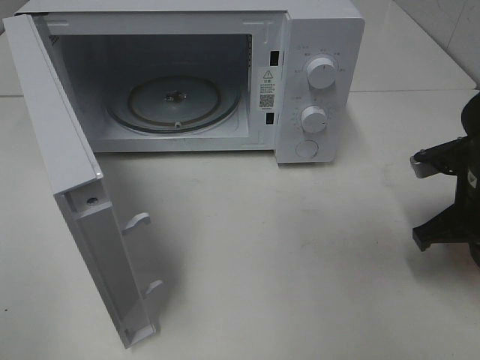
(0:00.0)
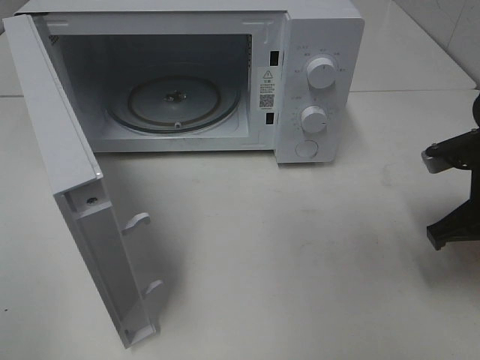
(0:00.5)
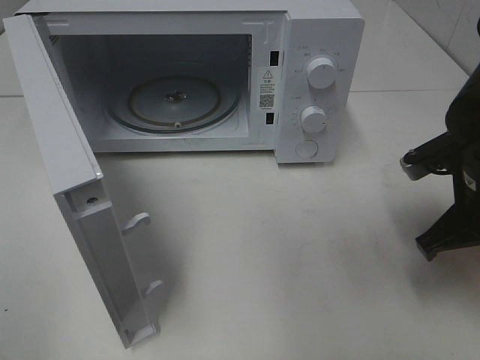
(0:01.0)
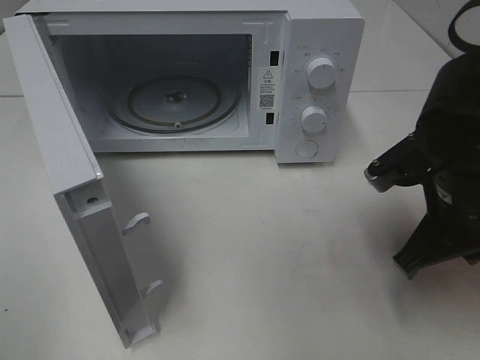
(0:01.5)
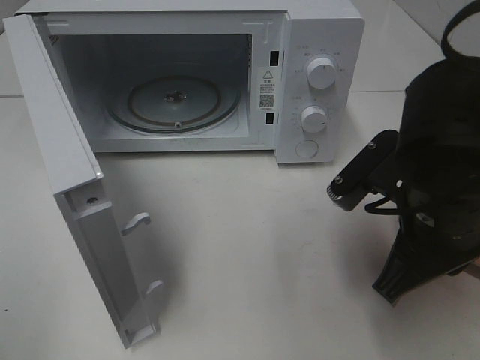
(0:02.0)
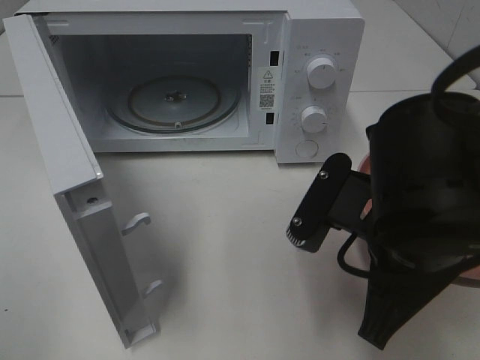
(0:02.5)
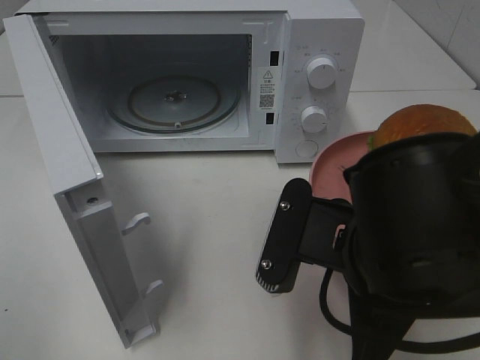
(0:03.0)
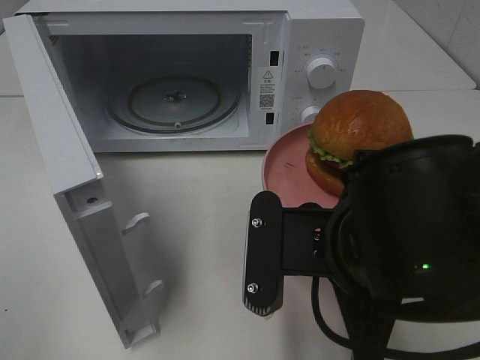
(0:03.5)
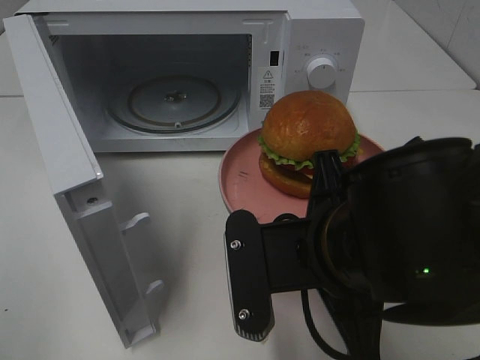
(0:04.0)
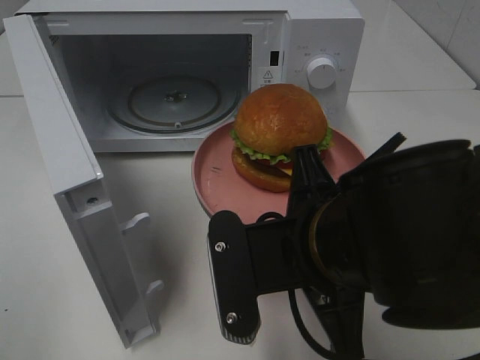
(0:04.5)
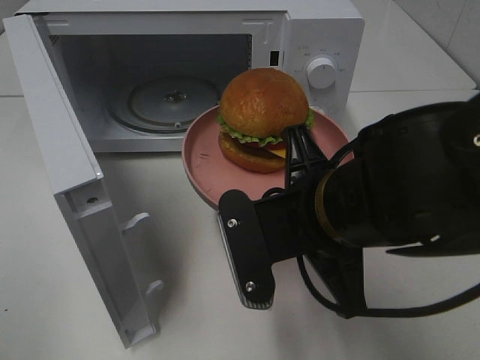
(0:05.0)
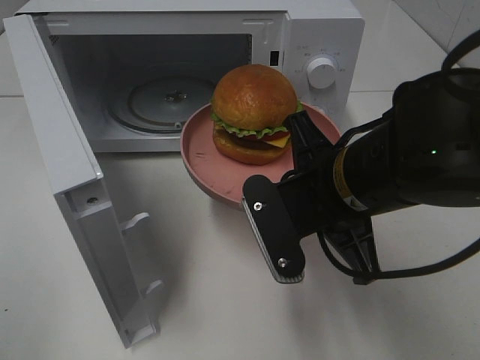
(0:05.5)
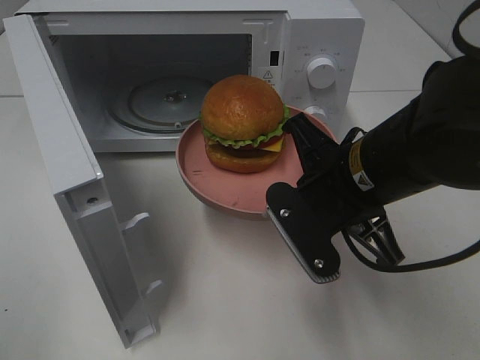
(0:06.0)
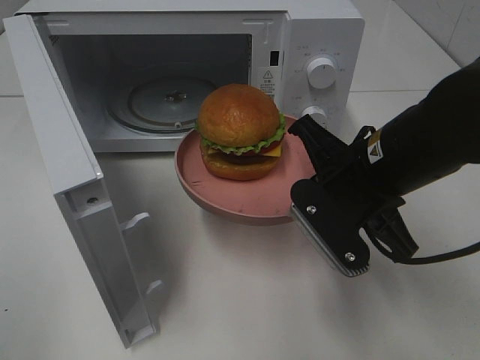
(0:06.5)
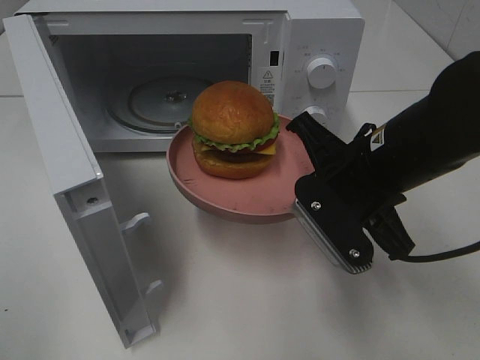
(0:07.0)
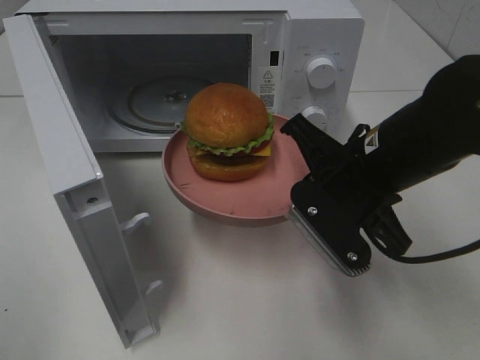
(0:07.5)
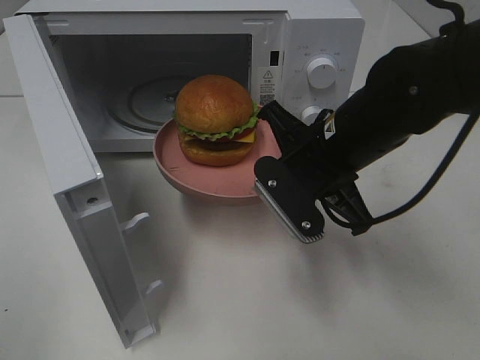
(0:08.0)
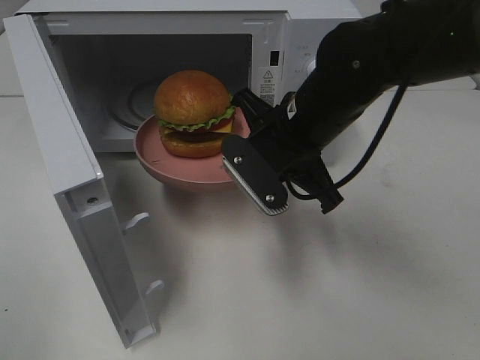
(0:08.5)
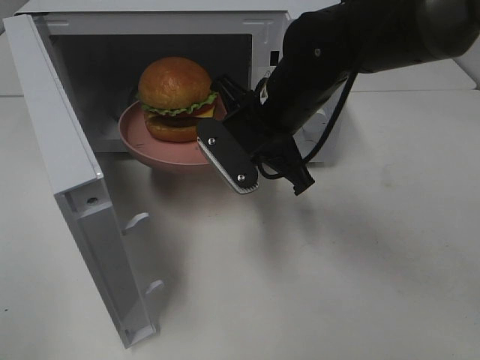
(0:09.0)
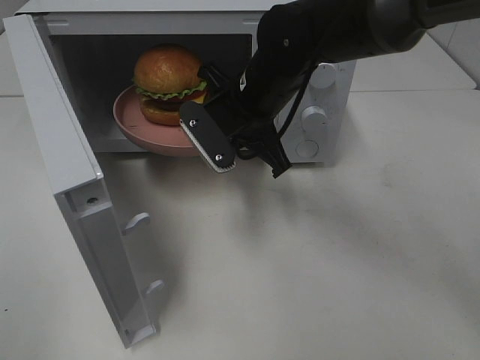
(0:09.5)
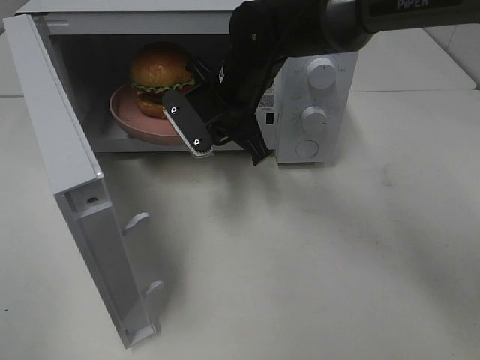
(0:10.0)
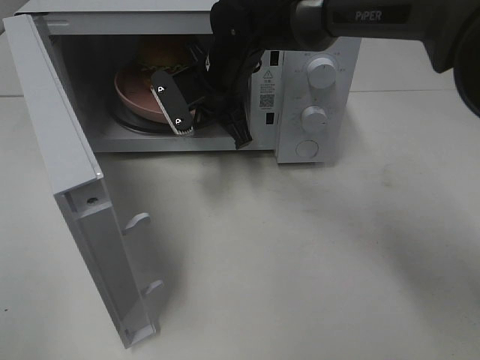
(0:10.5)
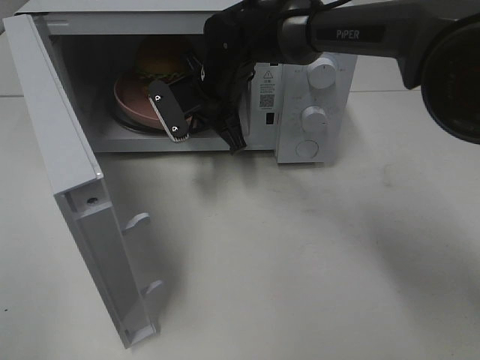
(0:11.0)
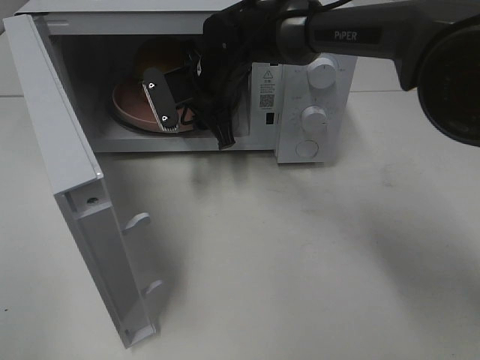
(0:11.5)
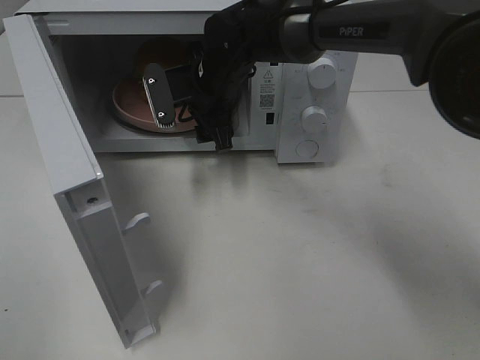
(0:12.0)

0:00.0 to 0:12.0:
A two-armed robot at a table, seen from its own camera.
Task of the whole recording: Heat the burger.
Step, 0:00.0 to 0:11.5: Right hand: place the plate in the microwave.
0:00.0 to 0:02.0: The right gripper heads to the left and backward, covering some 15 cm.
0:02.0 to 0:04.0: The right gripper is displaced to the left by some 10 cm.
0:04.0 to 0:06.0: The right gripper heads forward, covering about 10 cm.
0:06.0 to 0:08.0: The right gripper travels forward by approximately 5 cm.
0:08.0 to 0:10.0: The right gripper is displaced forward and to the left by about 15 cm.
0:10.0 to 0:12.0: The right gripper opens up.

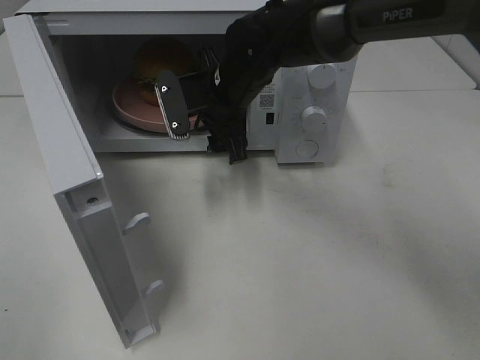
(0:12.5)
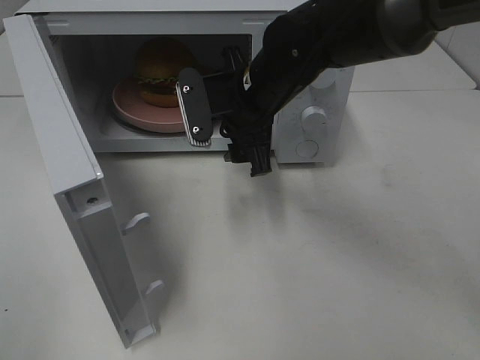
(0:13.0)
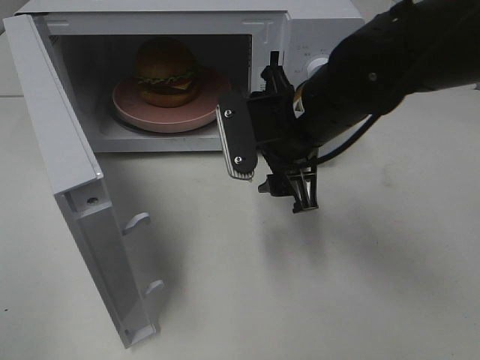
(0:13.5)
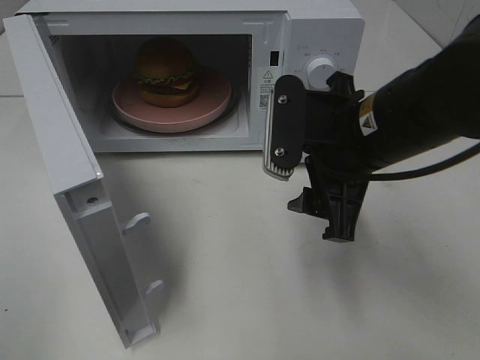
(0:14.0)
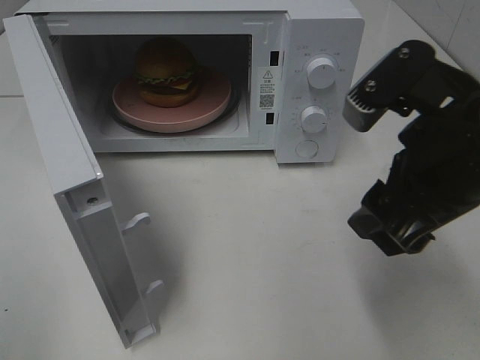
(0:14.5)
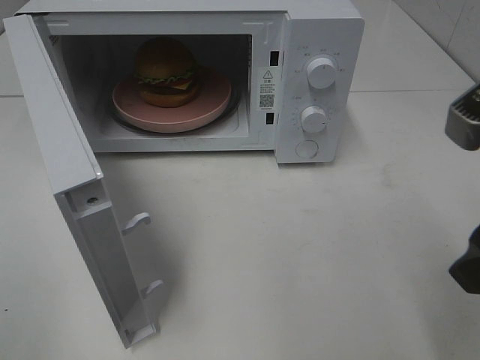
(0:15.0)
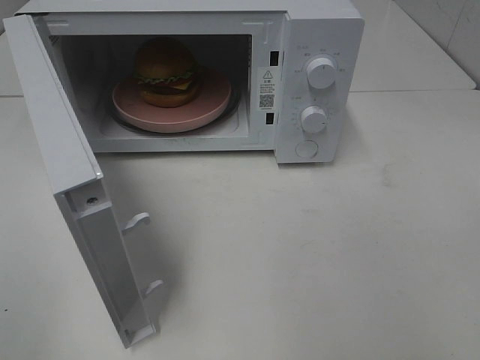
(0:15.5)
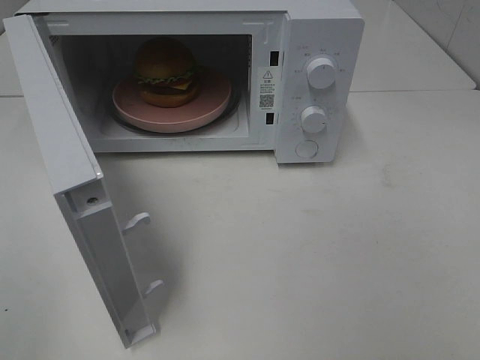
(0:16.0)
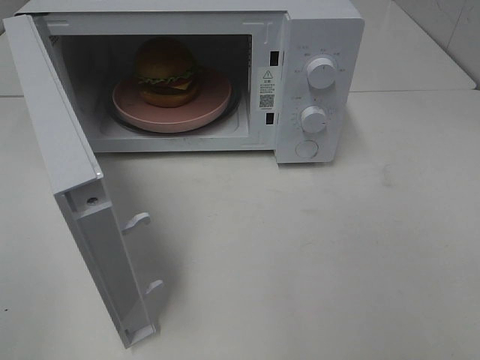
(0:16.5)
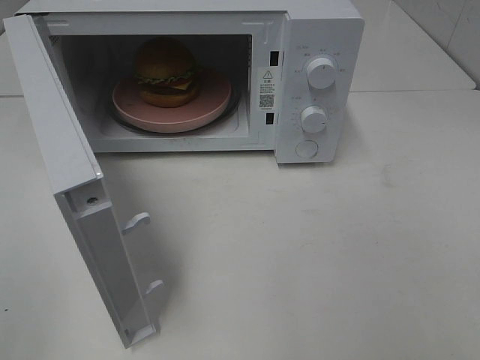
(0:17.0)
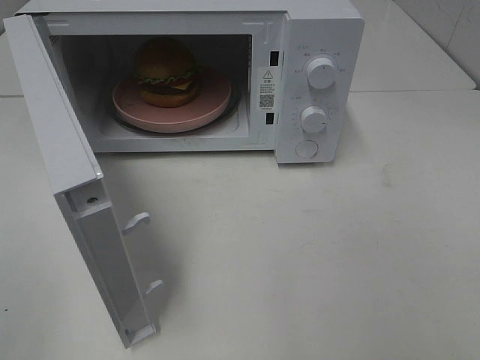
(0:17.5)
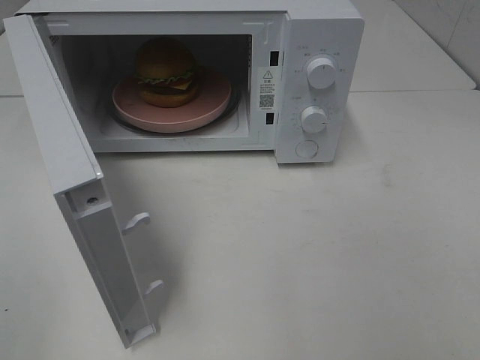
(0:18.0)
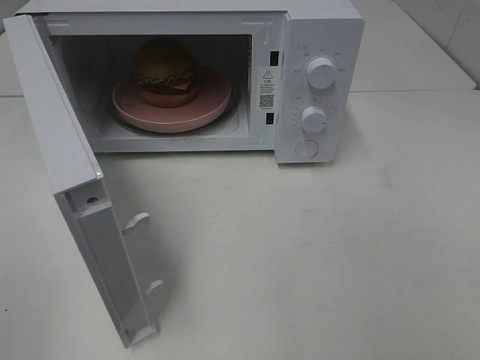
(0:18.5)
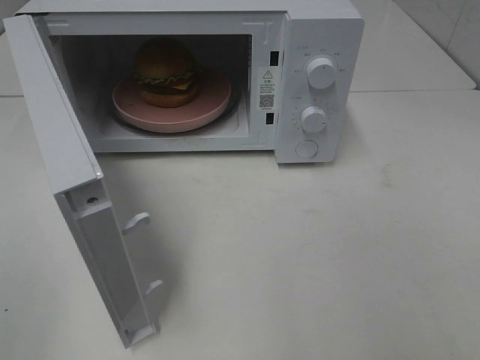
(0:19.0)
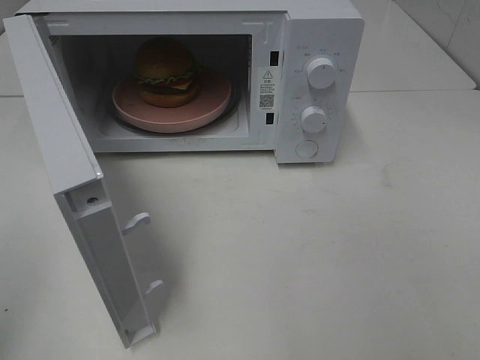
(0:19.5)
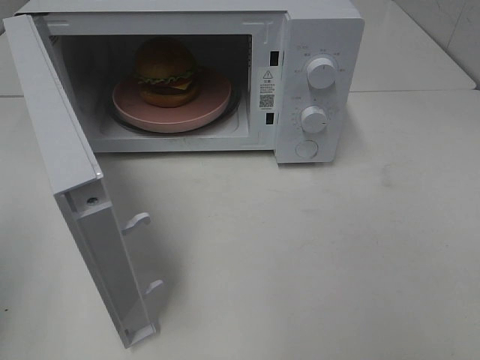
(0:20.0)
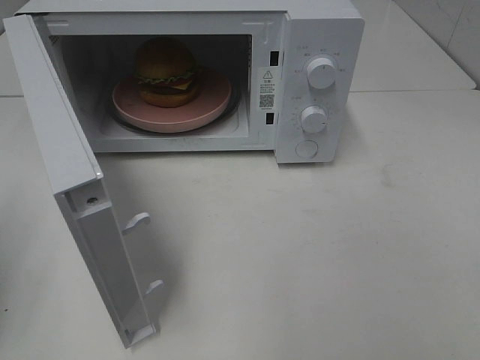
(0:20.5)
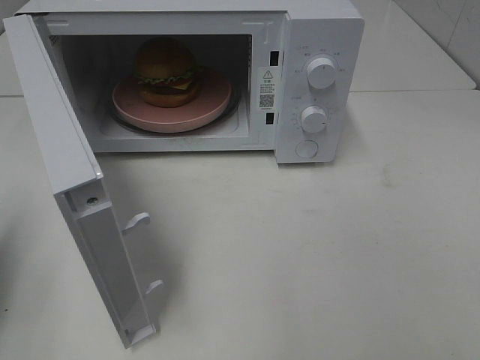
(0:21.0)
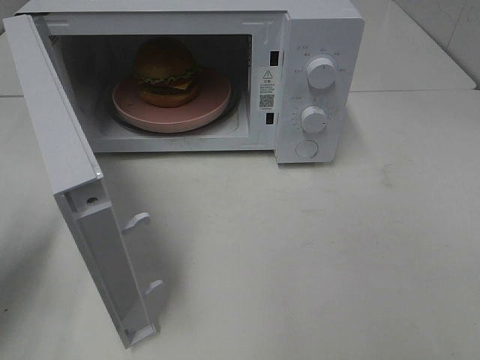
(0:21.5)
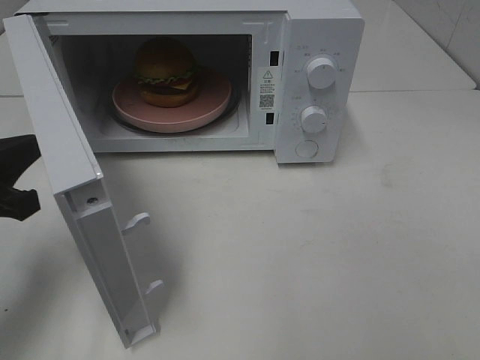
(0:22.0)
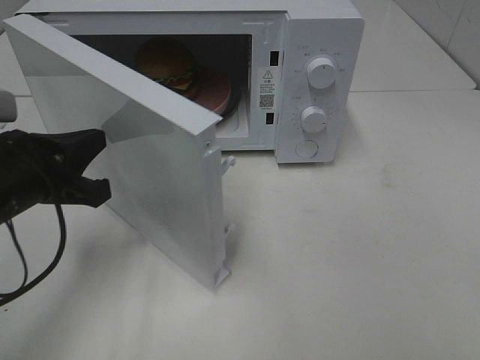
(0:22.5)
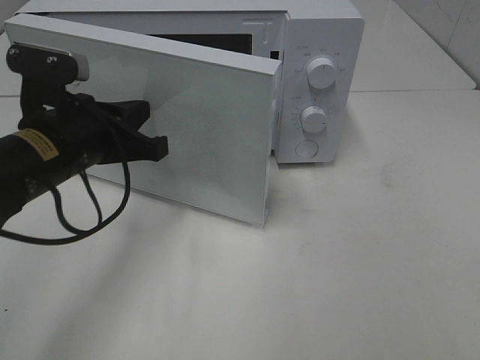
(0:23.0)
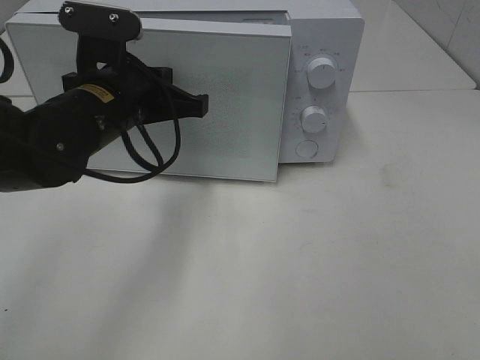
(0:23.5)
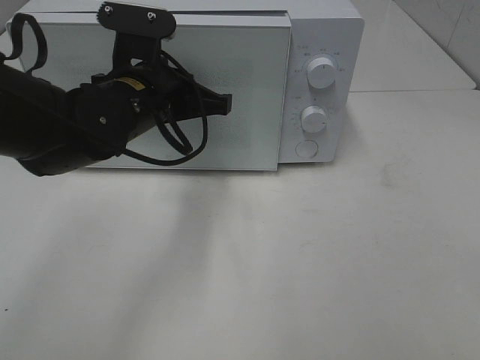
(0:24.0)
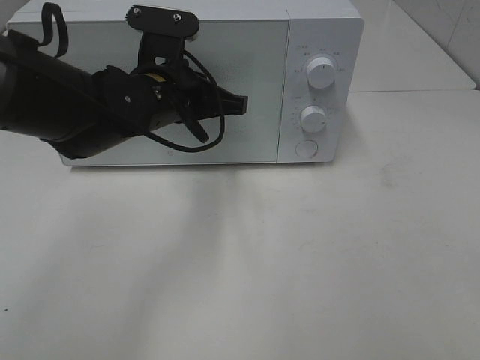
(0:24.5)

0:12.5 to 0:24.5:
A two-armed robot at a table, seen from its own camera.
Task of the whole recording: Heat the burger.
0:12.5 to 0:14.5: The right gripper travels backward and to the right by about 25 cm.
0:14.5 to 0:16.5: The right gripper heads backward and to the right, covering approximately 20 cm.
0:16.5 to 0:18.5: Both grippers stay put.
0:20.5 to 0:22.5: The left gripper is displaced to the right, forward and downward by roughly 15 cm.
0:22.5 to 0:24.5: The left gripper travels to the right and forward by roughly 20 cm.

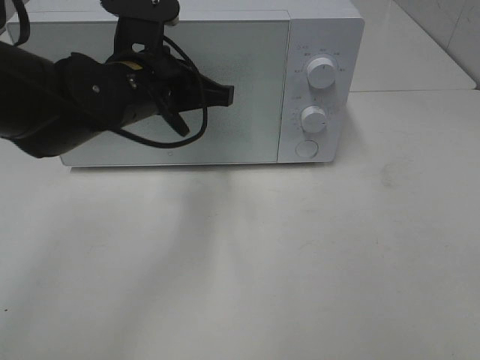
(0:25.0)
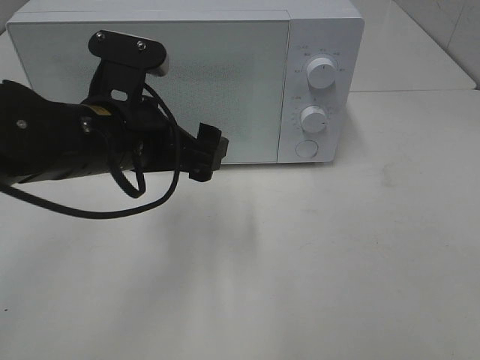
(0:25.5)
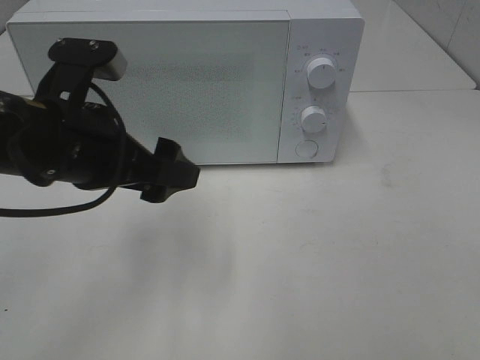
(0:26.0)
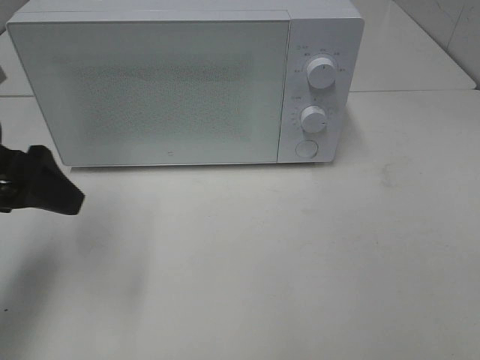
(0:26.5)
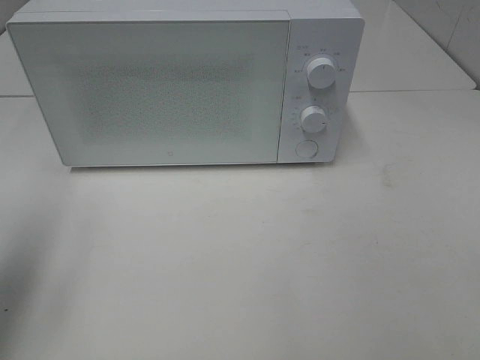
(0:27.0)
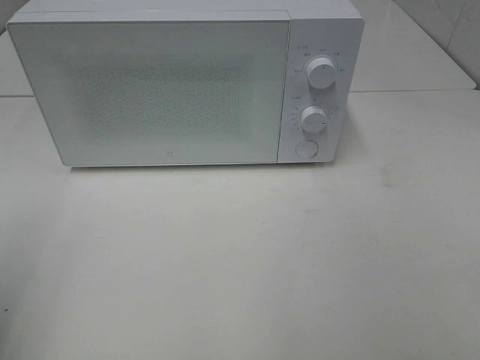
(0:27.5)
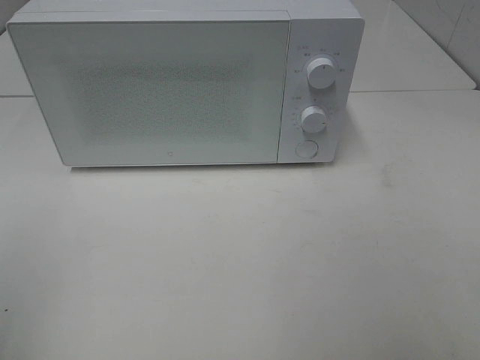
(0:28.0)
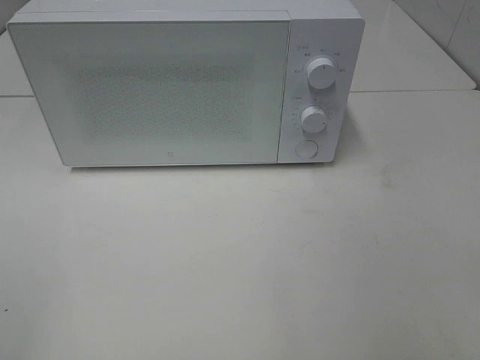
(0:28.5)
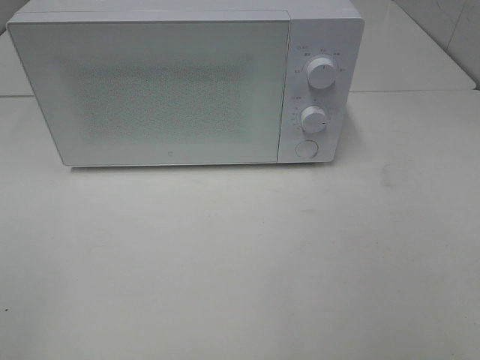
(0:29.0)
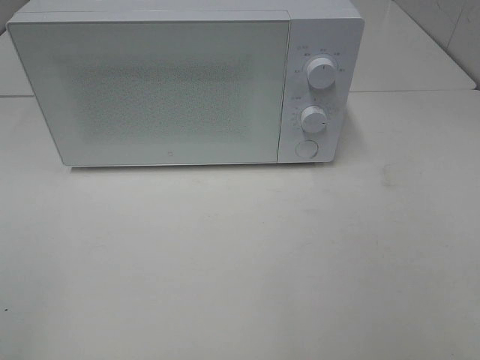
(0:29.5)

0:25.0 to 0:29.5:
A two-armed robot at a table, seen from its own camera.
Task of the whole recording: Heat the burger.
0:25.0 to 0:27.0: The left gripper travels to the left and backward by some 25 cm, and opens its fingers.
0:27.0 to 0:29.5: The left gripper heads backward, covering some 15 cm.
